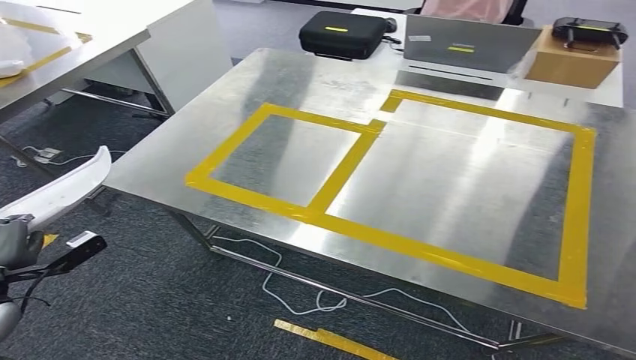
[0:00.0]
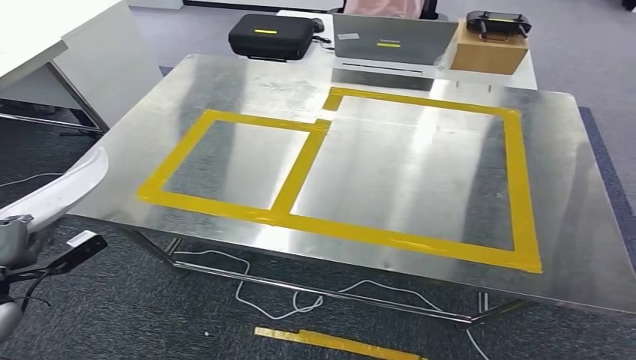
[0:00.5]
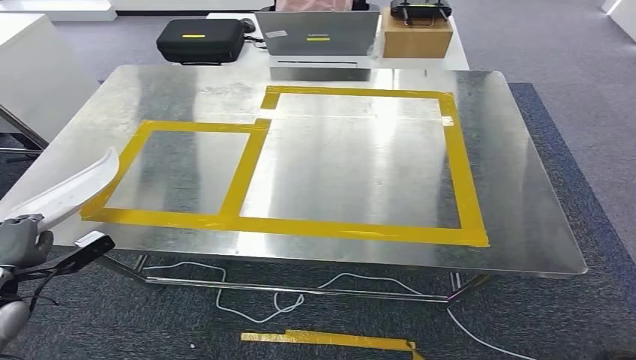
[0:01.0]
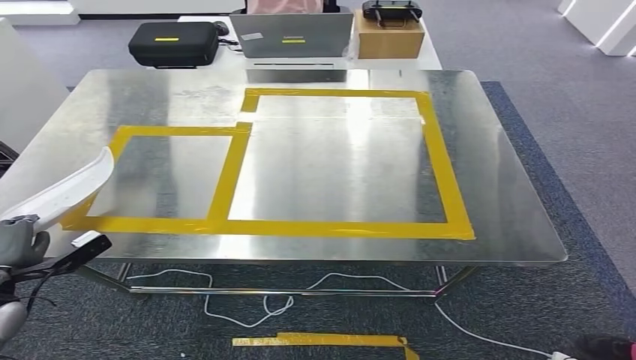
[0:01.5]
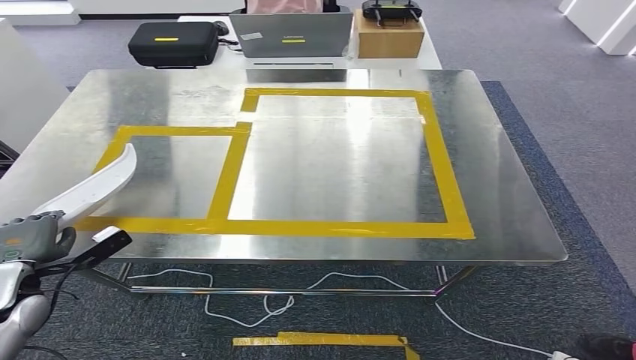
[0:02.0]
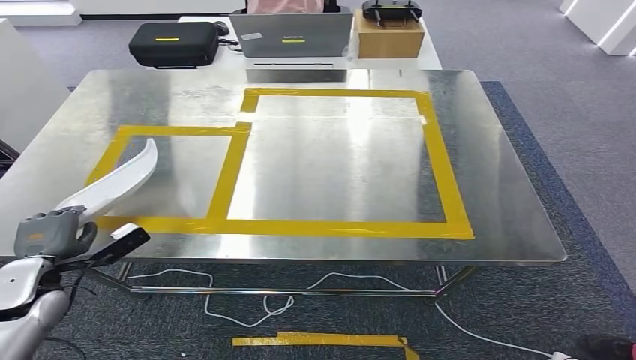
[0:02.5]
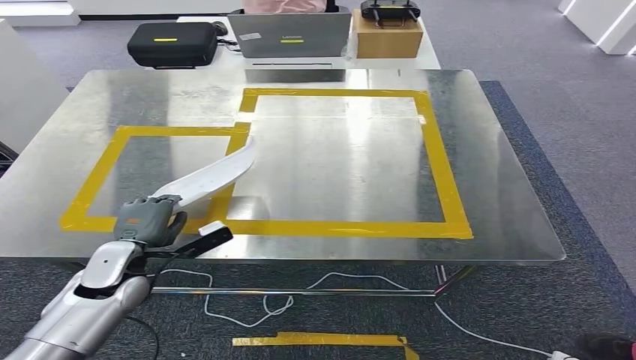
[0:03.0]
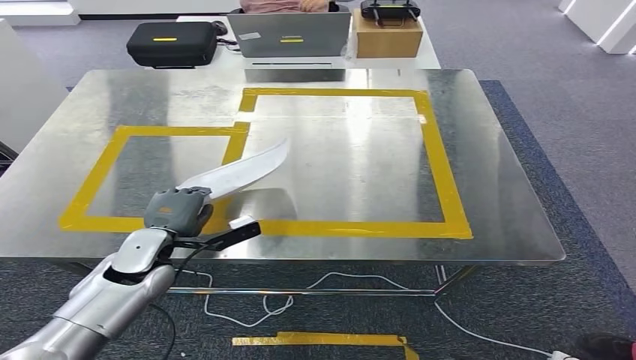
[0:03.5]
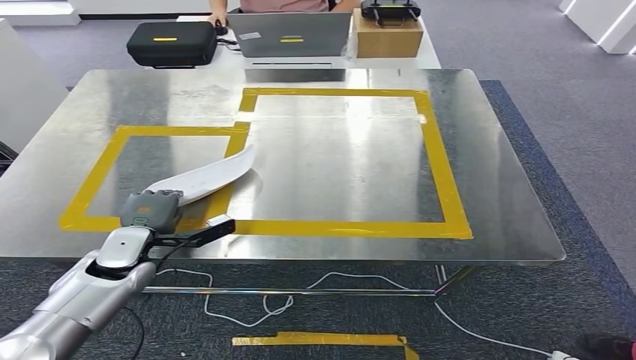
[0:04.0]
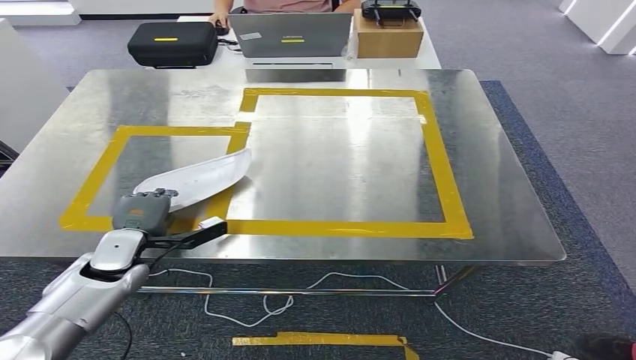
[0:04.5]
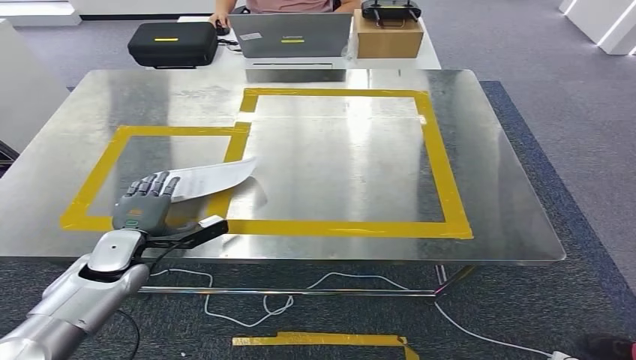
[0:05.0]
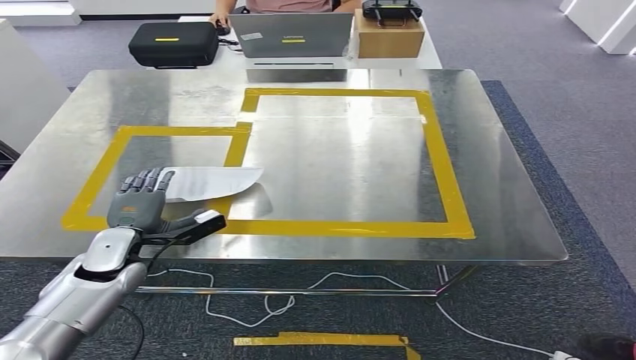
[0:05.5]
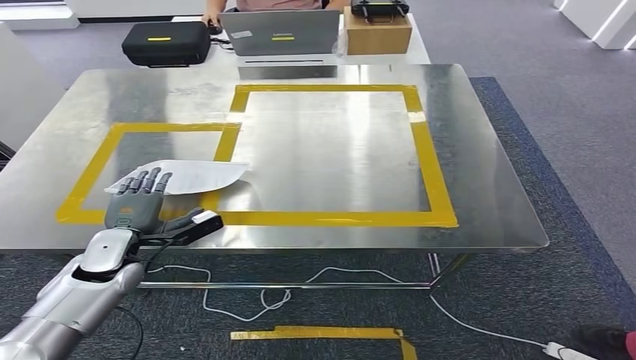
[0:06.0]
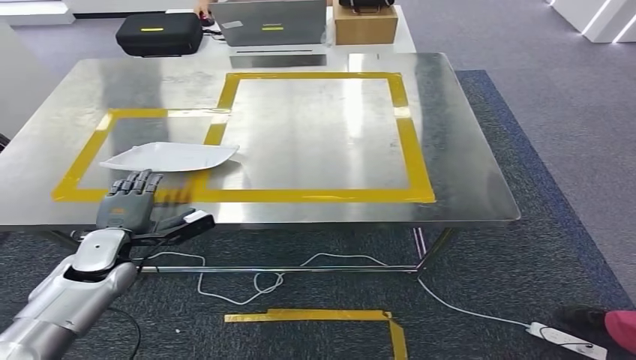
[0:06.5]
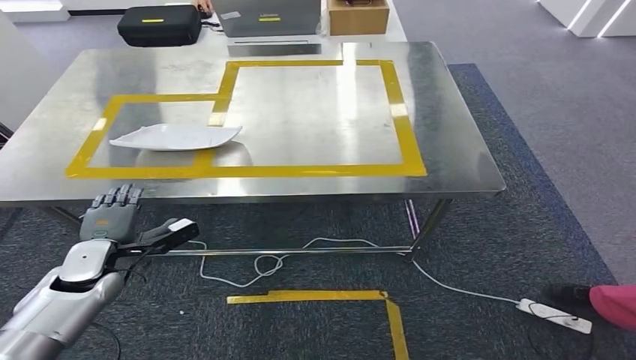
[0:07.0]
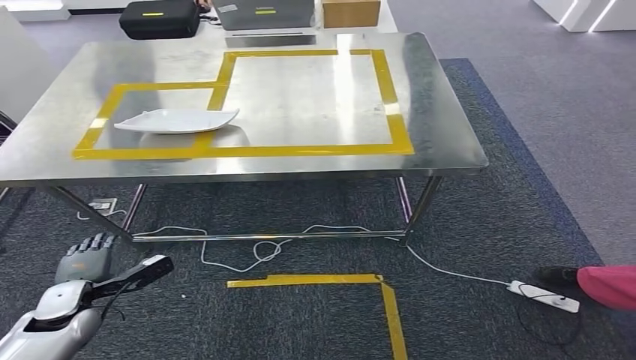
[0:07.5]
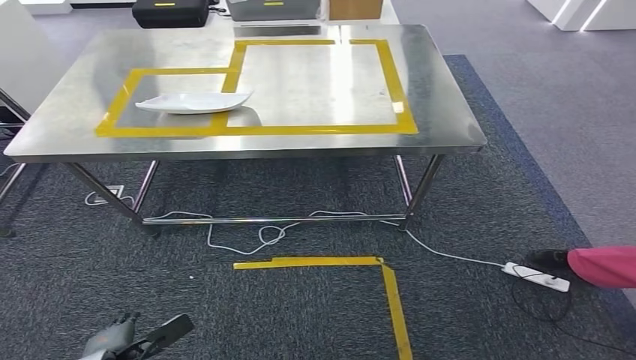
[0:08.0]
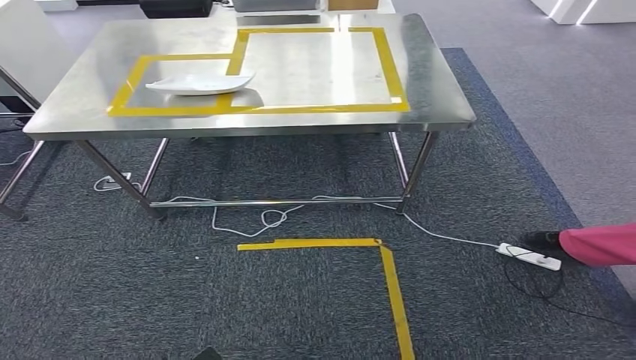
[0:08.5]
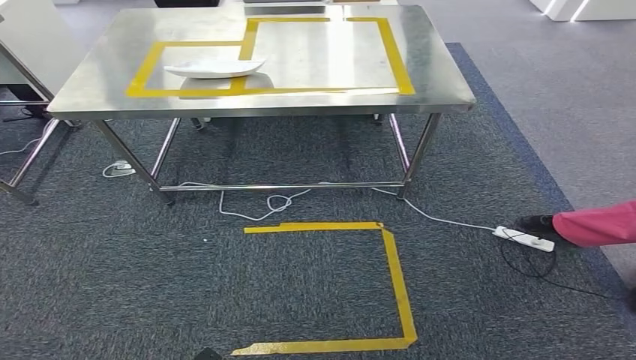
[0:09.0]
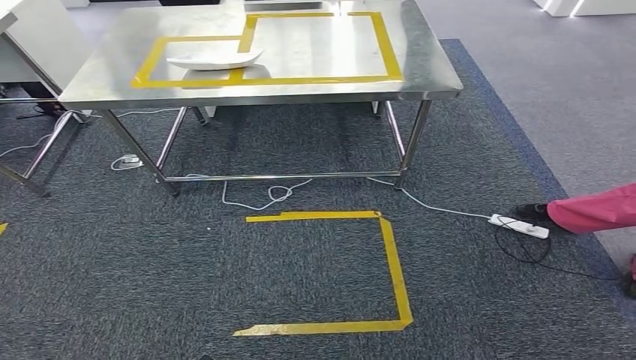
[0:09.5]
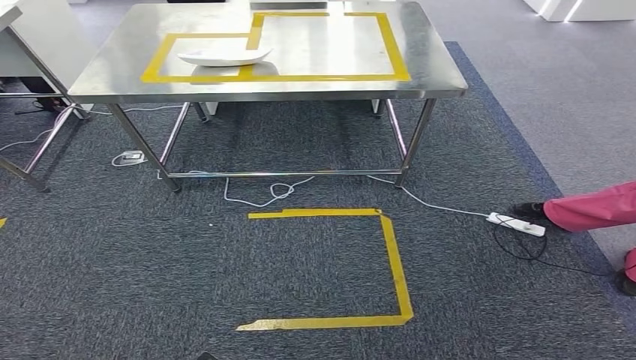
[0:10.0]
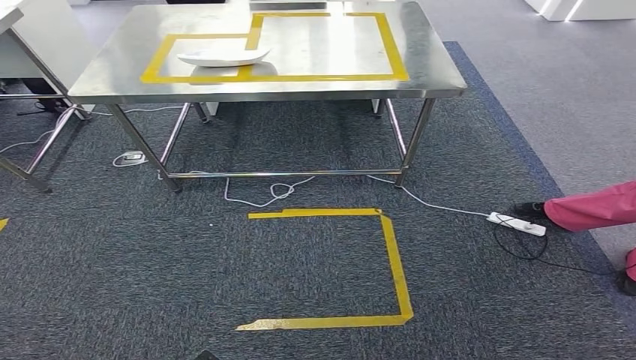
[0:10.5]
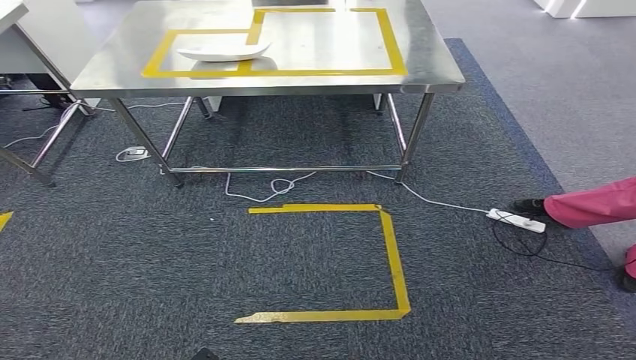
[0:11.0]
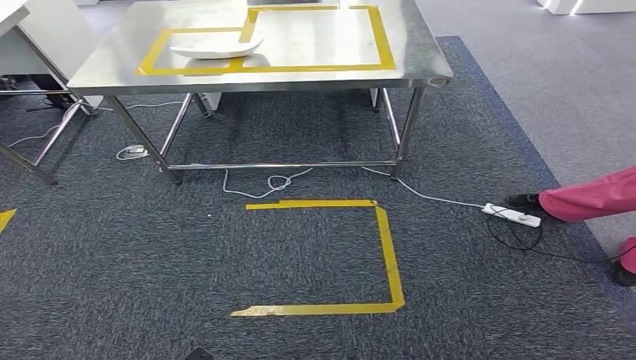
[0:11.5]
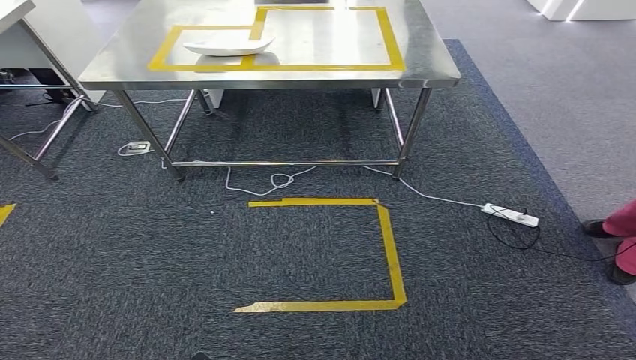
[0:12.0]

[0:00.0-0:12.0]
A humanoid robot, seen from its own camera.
Step, 0:02.0 to 0:11.0: Insert the small component into the corresponding slot on the workbench.
0:02.0 to 0:04.0: The left hand shifts roughly 15 cm to the right and forward.
0:10.0 to 0:12.0: There are only small adjustments of the hands.
